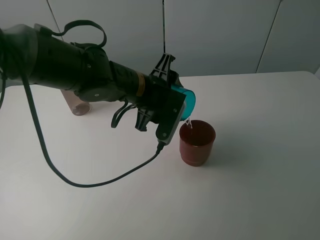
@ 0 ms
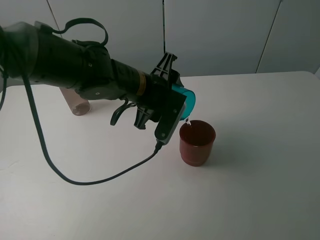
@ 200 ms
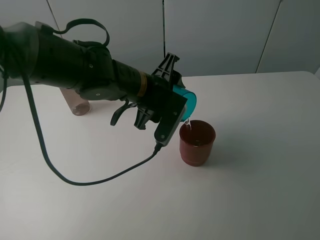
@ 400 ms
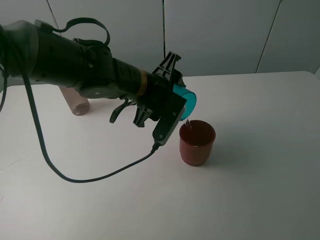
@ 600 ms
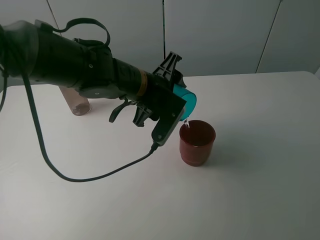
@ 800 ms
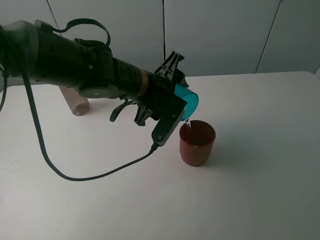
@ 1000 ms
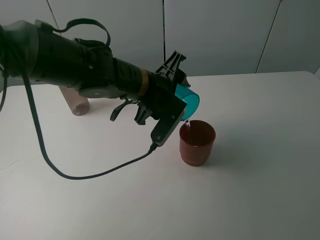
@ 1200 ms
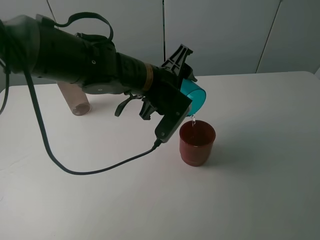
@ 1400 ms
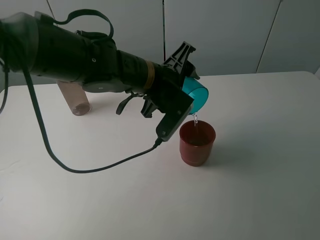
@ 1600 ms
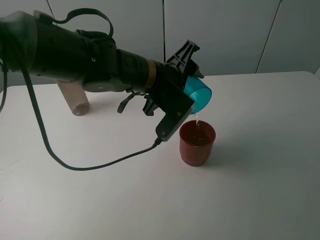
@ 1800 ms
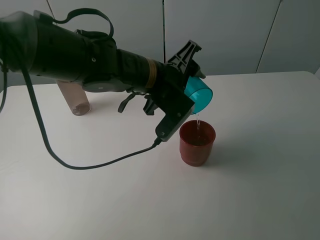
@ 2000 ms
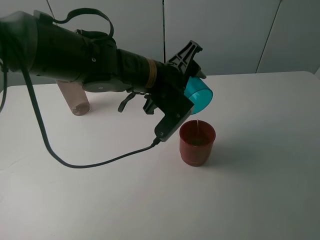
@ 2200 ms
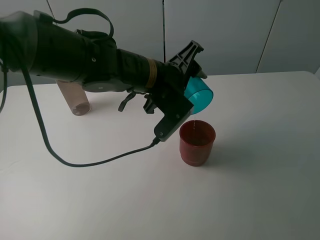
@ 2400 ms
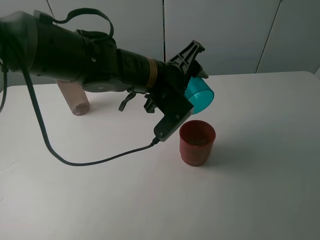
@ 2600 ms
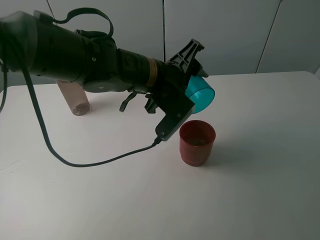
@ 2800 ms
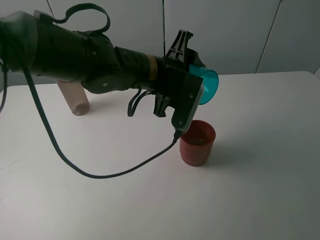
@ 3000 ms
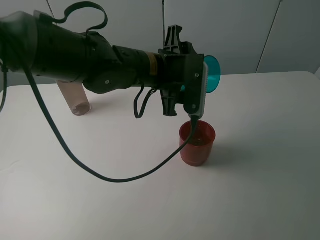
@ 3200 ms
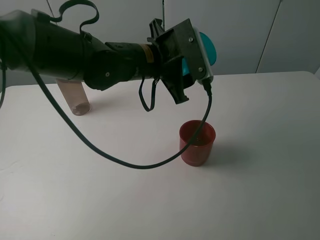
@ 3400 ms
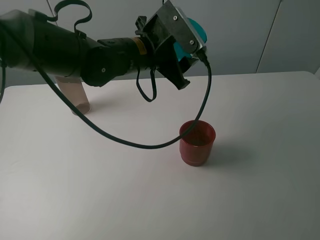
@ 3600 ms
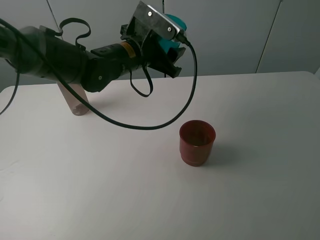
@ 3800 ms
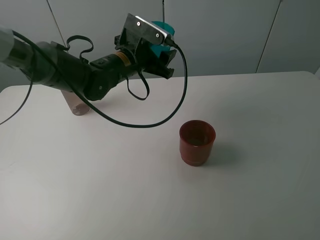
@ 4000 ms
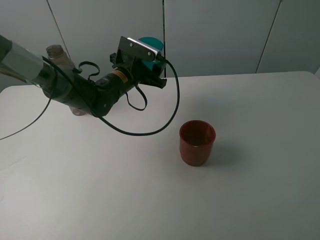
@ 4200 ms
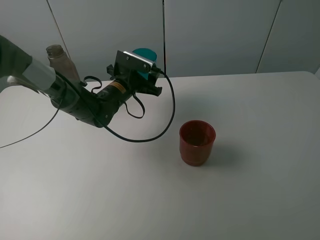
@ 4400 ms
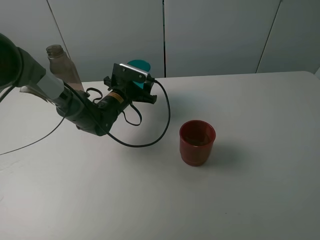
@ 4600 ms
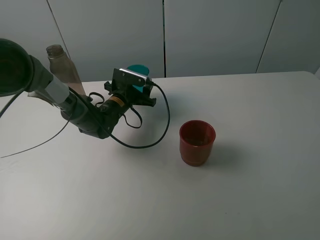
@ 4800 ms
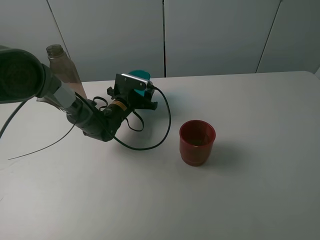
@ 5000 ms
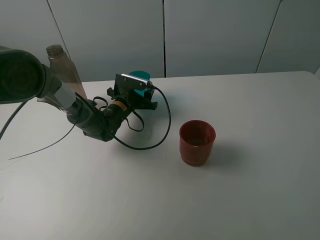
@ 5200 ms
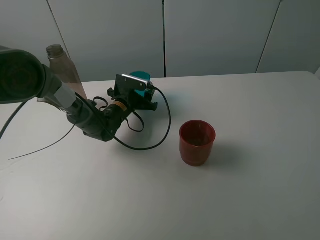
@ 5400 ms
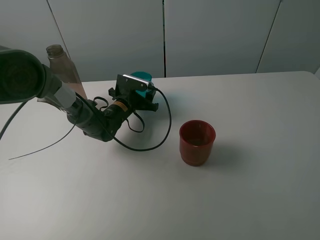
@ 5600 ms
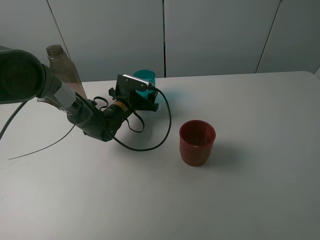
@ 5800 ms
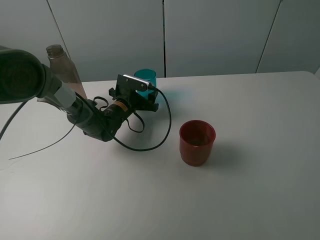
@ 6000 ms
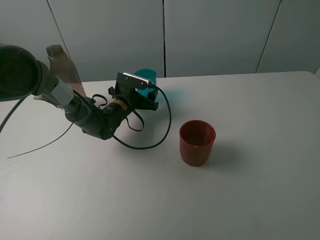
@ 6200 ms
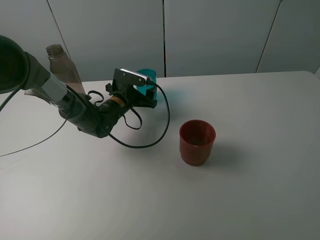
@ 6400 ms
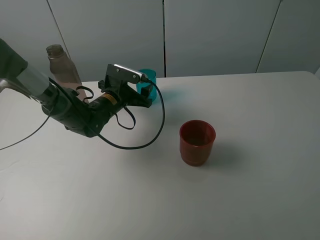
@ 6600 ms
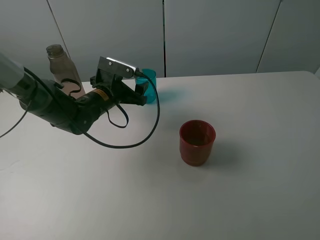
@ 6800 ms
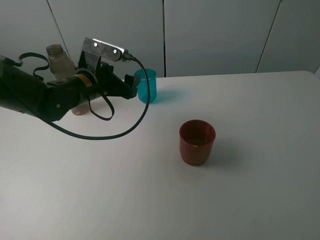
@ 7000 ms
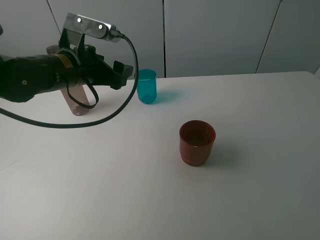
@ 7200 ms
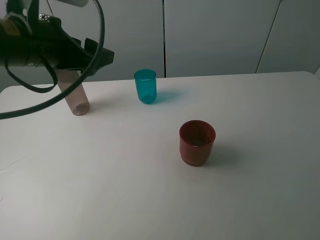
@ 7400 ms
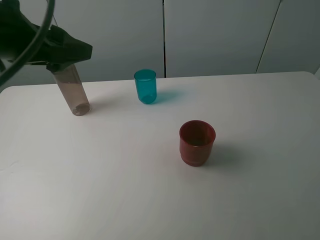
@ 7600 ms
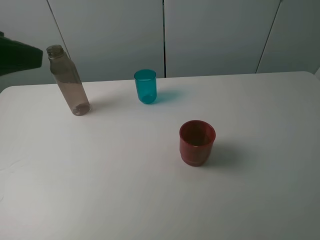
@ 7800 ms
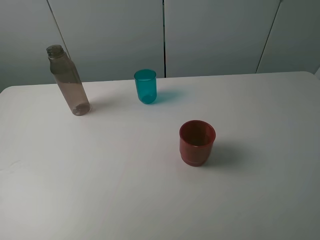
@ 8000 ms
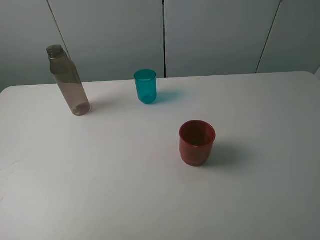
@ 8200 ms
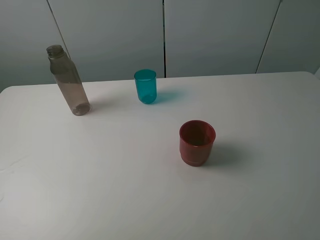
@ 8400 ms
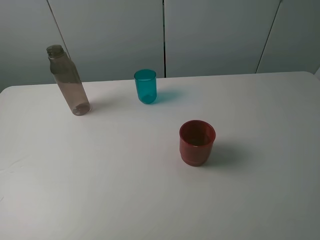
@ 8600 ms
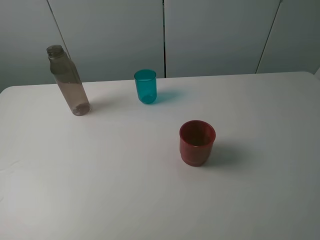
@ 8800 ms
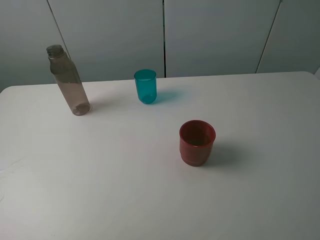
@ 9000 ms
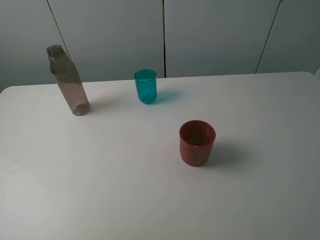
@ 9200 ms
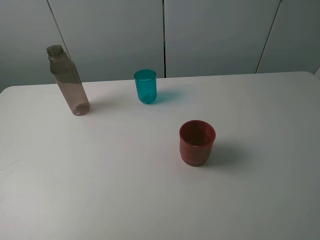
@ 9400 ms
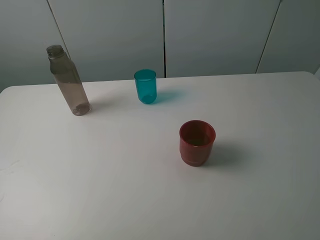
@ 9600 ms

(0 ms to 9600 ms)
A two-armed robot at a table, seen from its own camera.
Task of the whole recording: pick up the bottle and pour water into the cup, then pick up the cup containing water and pour it into another cup.
Step, 0 ms - 2600 ms: Pour water from blue cup to red cup with the left gripper.
Step, 2800 ms - 5800 ms: Place the blue cup with the left gripper.
0 ms - 1600 ms: There are only small adjustments of the grippers.
3200 ms - 4800 ms: The left gripper moves downward, forward and to the left, roughly 25 cm.
4800 ms - 6400 ms: The left gripper opens up.
6400 ms - 8000 ms: The left gripper is displaced upward, backward and to the left by about 50 cm.
